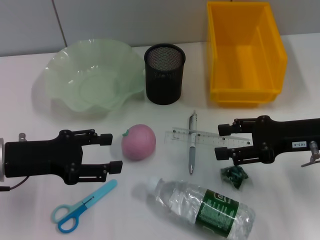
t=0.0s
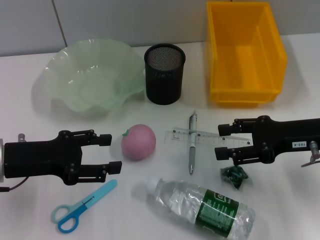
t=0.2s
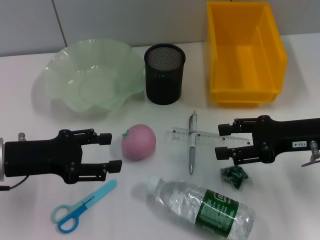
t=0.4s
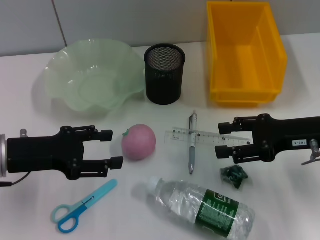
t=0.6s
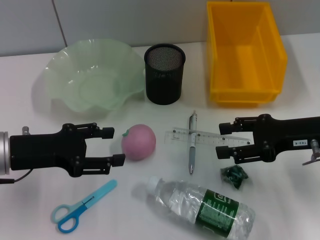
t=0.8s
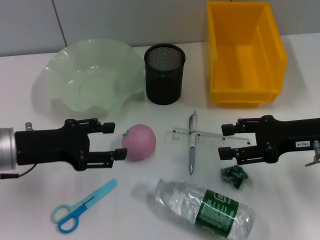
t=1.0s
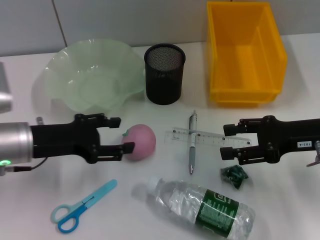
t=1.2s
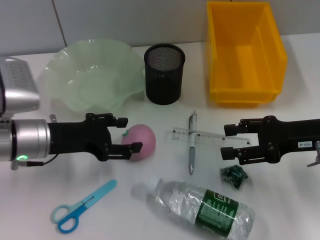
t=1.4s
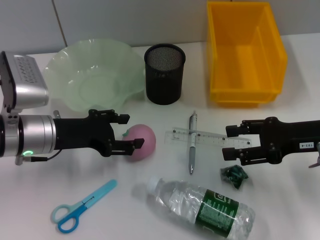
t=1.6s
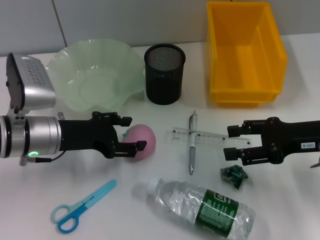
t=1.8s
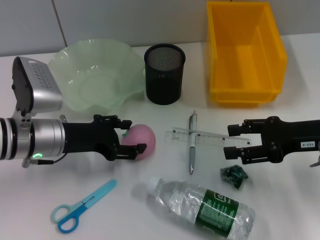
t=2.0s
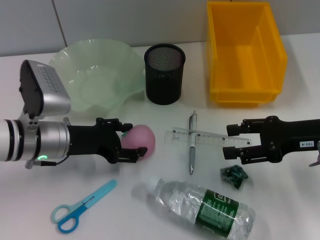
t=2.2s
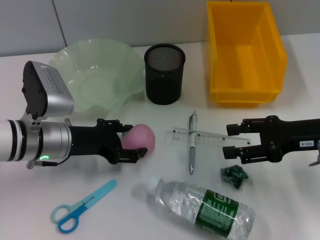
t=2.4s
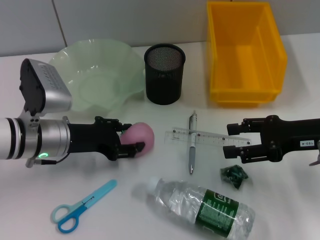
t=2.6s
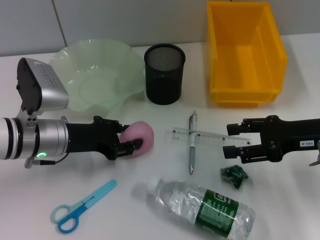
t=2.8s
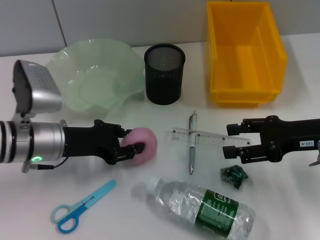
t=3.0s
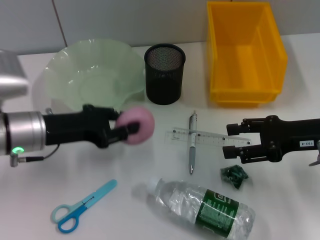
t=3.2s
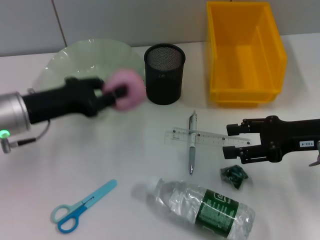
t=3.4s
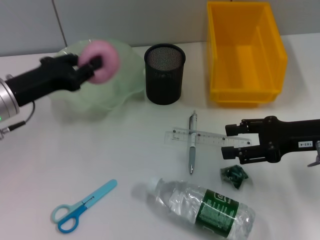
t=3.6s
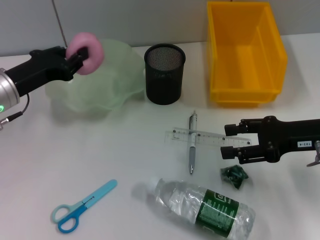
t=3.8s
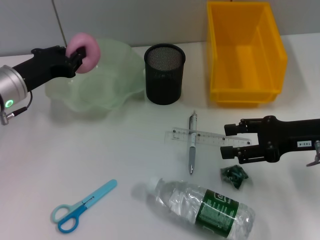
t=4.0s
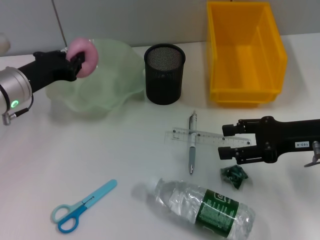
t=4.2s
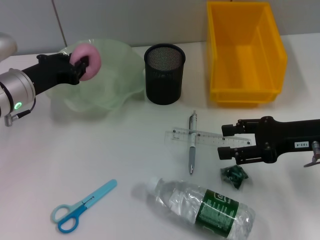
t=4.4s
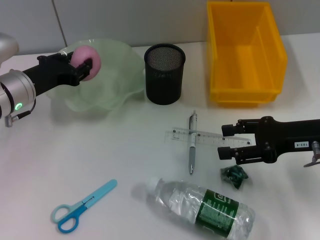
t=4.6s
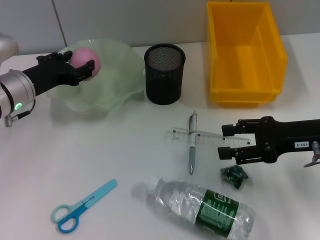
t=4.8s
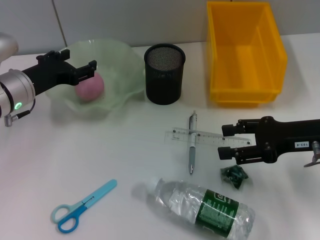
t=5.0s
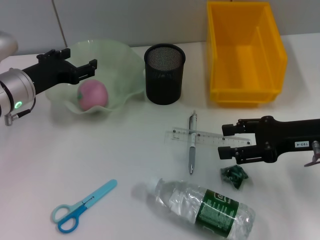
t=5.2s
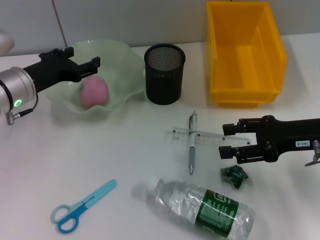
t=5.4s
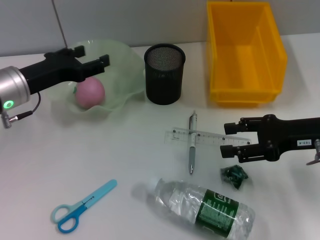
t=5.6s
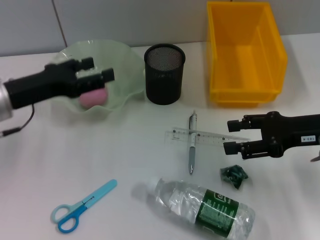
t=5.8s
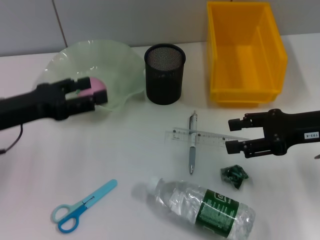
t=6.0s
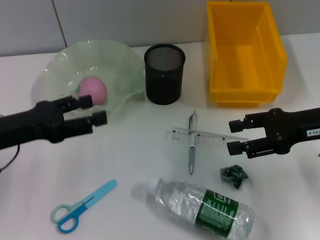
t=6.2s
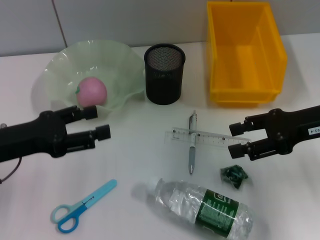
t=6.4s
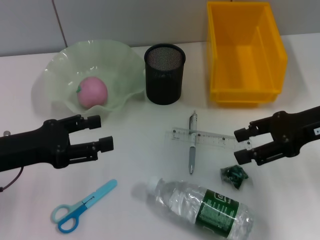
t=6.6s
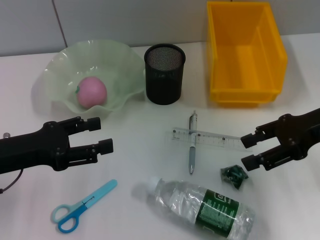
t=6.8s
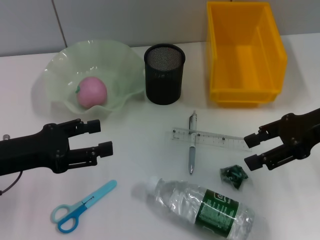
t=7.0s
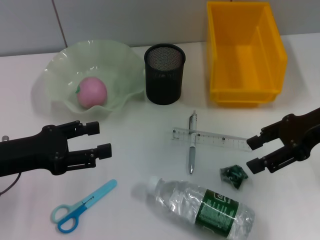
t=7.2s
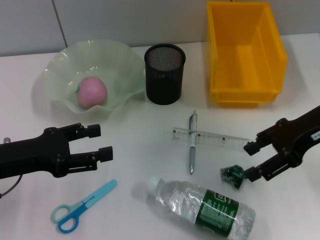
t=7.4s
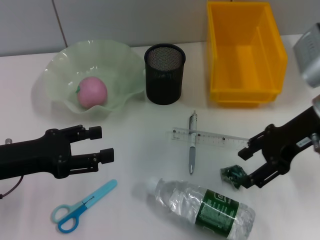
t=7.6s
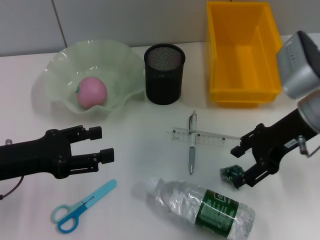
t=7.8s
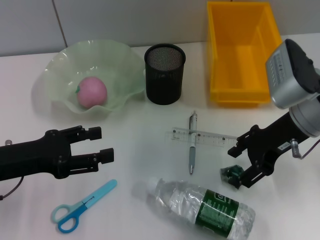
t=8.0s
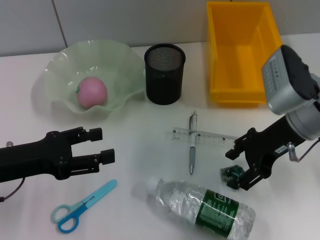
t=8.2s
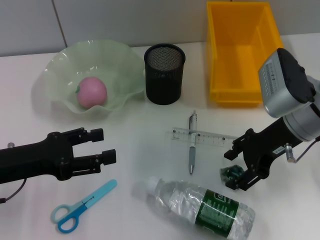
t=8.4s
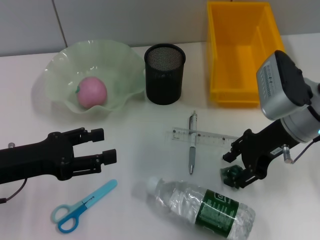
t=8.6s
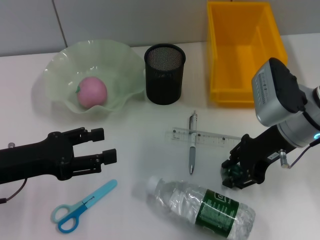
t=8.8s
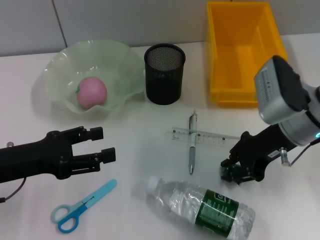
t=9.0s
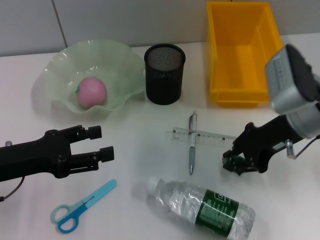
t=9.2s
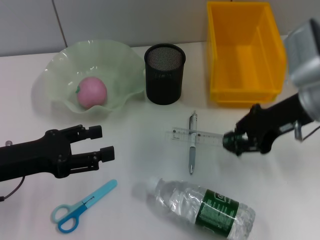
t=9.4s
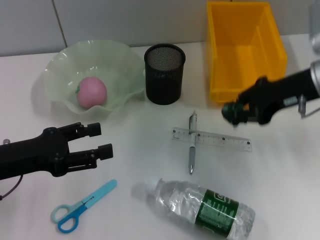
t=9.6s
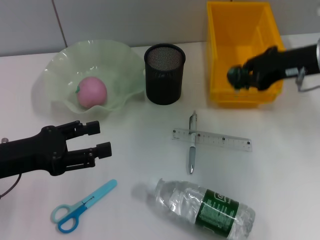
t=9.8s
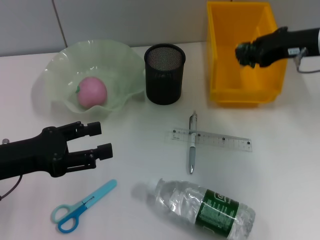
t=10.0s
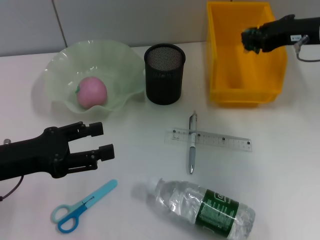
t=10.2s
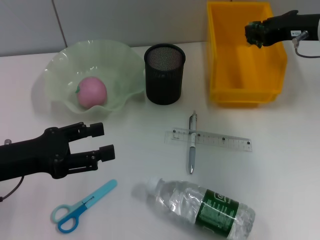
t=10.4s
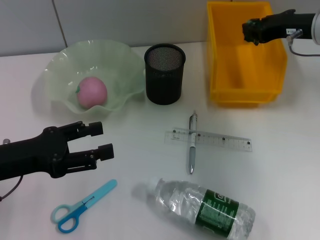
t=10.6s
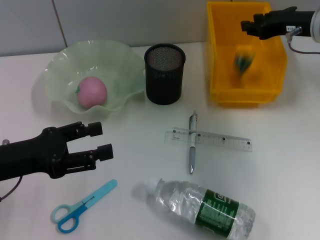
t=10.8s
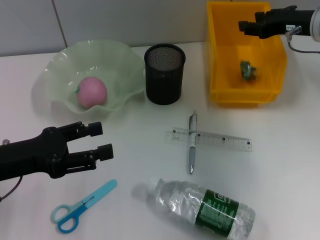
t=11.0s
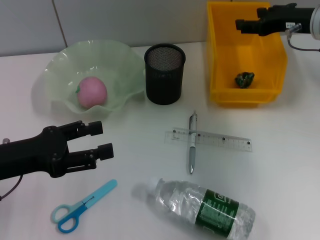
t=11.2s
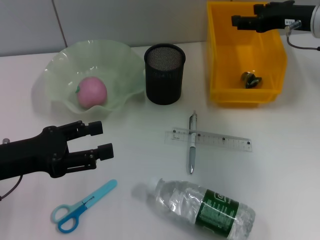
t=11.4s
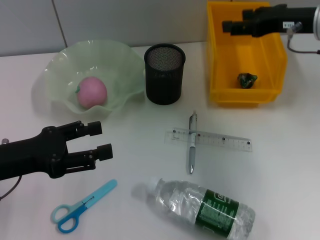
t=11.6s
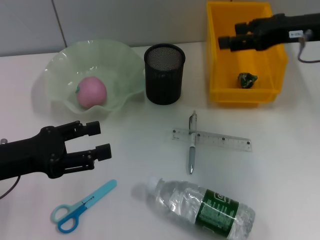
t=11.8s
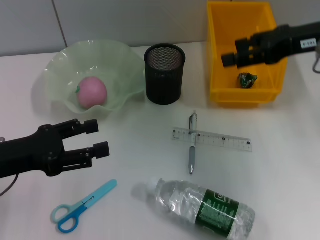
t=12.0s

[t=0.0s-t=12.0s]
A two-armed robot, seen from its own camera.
Step, t=0.0s to t=2.4s: Grab the peach with the left hand.
Step, t=2.6s to t=5.2s: Place the peach into the fruit bowl with the left hand.
Step, t=5.4s to t=8.6s: Grab the plastic with the right hand.
Step, t=8.8s to t=11.2s: Place the plastic into the trash can with the right hand.
t=0.0s to t=1.6s: The left gripper heads to the right, covering approximately 5 cm.
t=1.6s to t=3.0s: The left gripper closes up.
t=3.0s to t=4.4s: The left gripper travels forward by about 5 cm, and closes its fingers.
t=4.4s to t=6.0s: The left gripper shifts some 10 cm backward, and opens.
t=6.0s to t=7.6s: The right gripper ends up some 5 cm from where it was.
t=7.6s to t=9.0s: The right gripper ends up roughly 5 cm from where it was.
t=9.0s to t=10.4s: The right gripper goes about 10 cm forward, upward and to the right, and closes up.
t=10.4s to t=12.0s: The right gripper shifts some 5 cm backward, and opens.

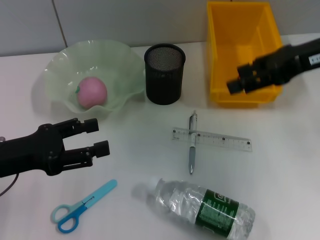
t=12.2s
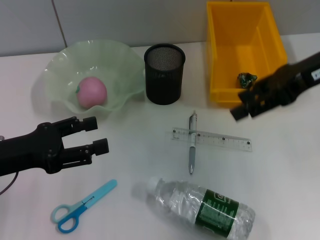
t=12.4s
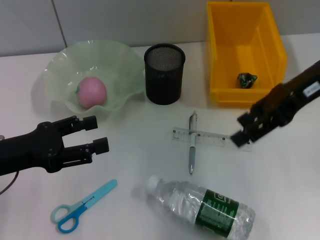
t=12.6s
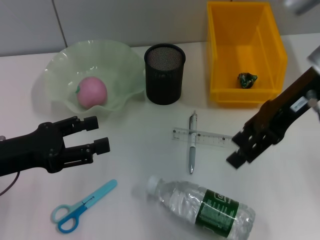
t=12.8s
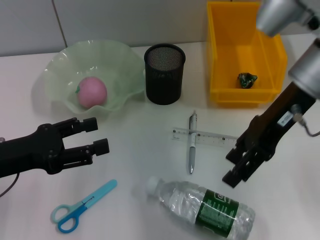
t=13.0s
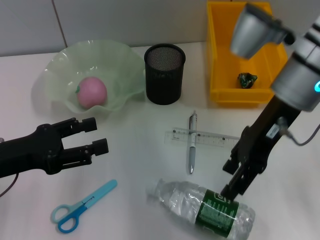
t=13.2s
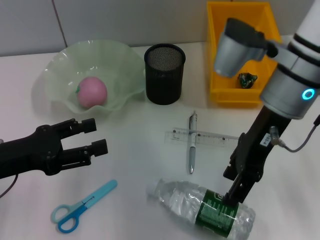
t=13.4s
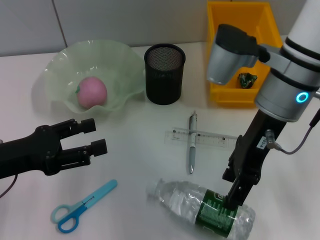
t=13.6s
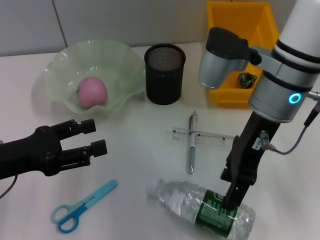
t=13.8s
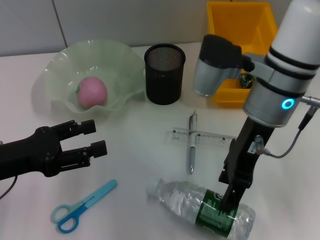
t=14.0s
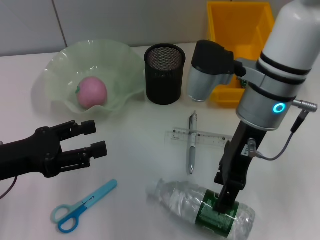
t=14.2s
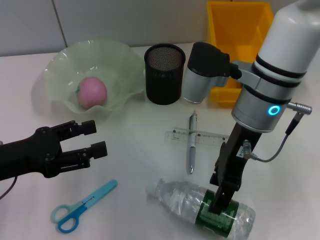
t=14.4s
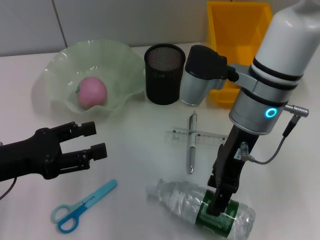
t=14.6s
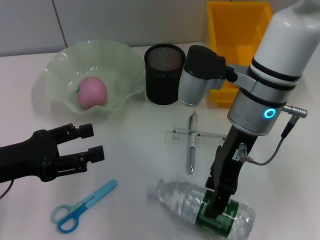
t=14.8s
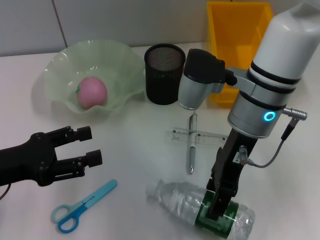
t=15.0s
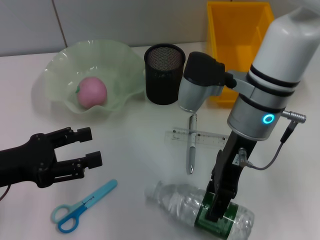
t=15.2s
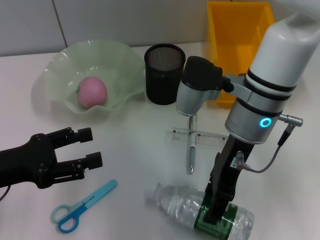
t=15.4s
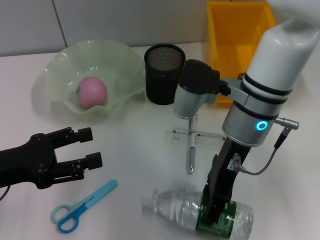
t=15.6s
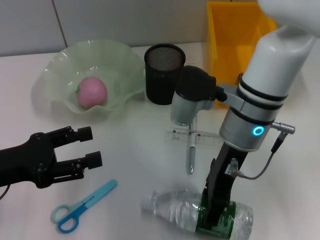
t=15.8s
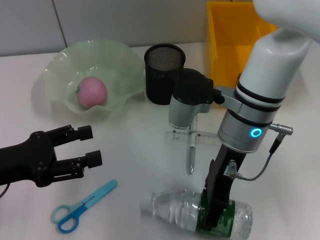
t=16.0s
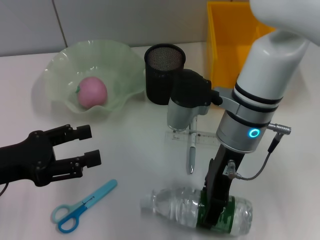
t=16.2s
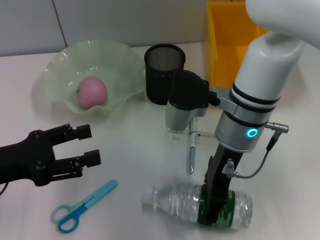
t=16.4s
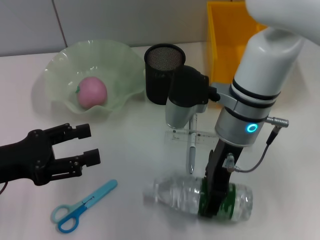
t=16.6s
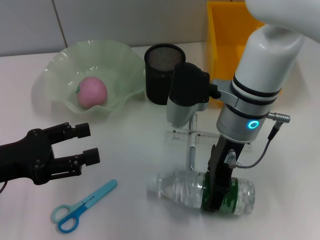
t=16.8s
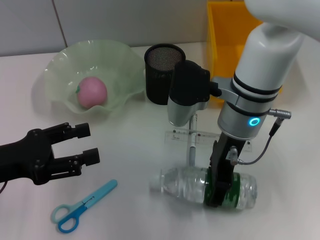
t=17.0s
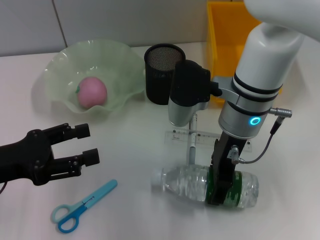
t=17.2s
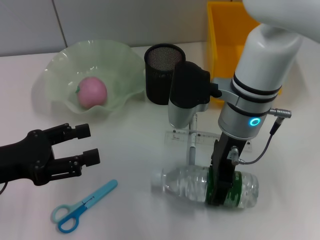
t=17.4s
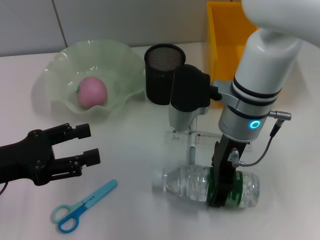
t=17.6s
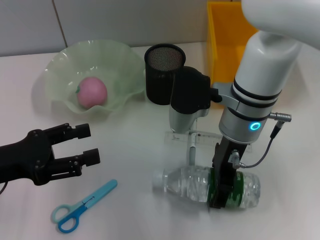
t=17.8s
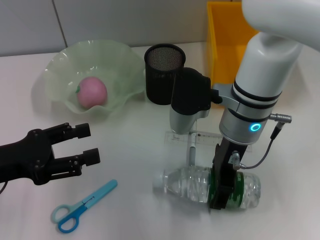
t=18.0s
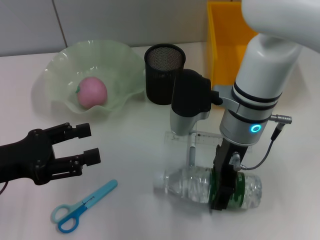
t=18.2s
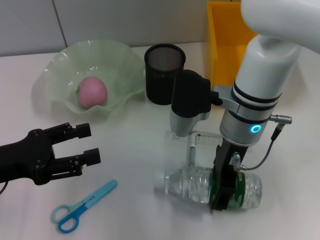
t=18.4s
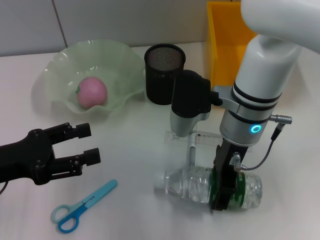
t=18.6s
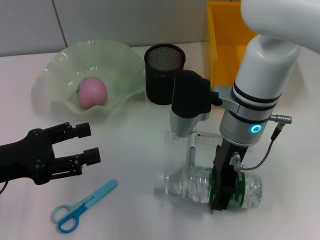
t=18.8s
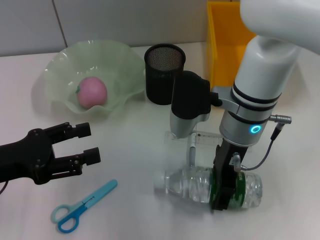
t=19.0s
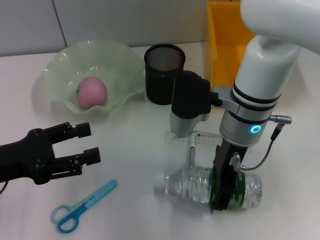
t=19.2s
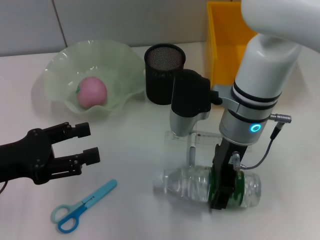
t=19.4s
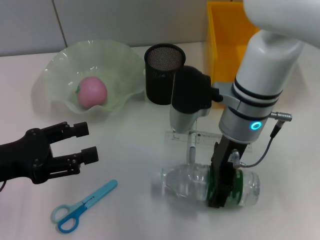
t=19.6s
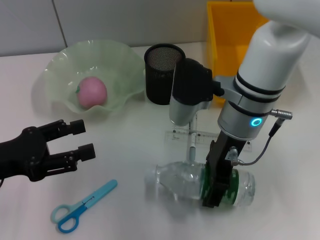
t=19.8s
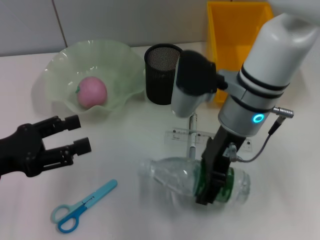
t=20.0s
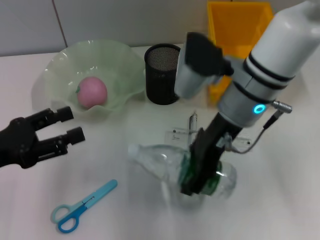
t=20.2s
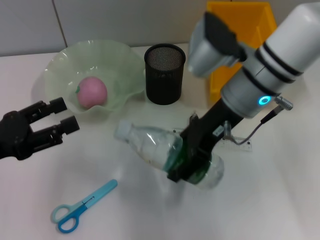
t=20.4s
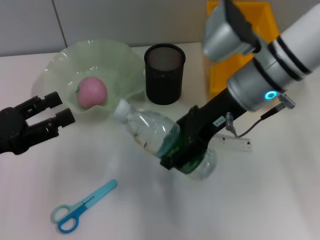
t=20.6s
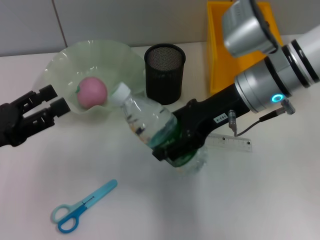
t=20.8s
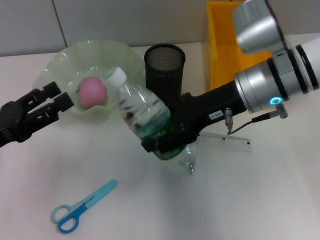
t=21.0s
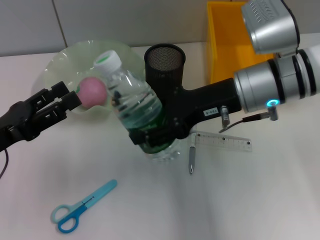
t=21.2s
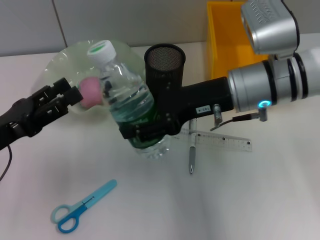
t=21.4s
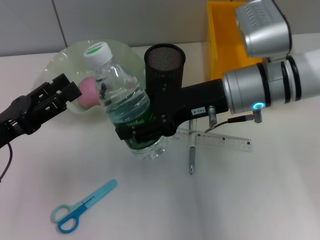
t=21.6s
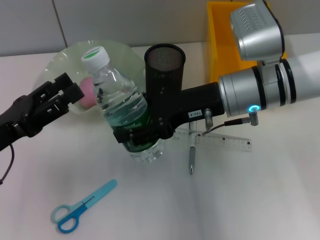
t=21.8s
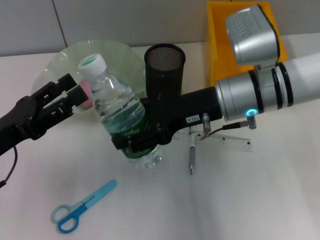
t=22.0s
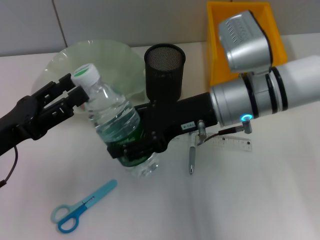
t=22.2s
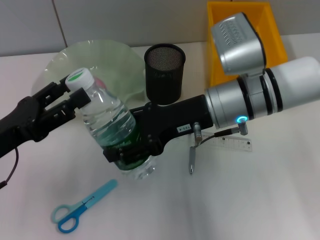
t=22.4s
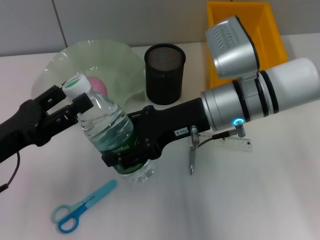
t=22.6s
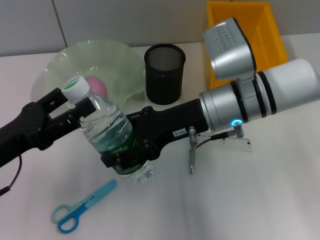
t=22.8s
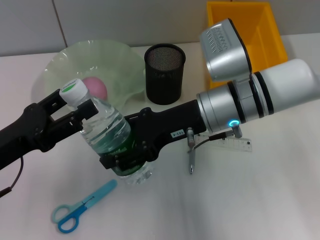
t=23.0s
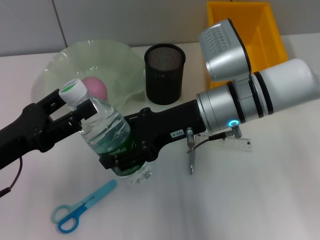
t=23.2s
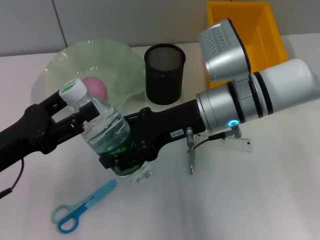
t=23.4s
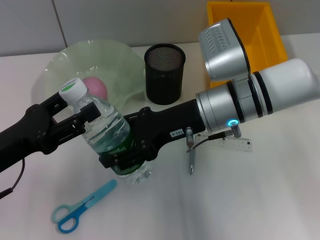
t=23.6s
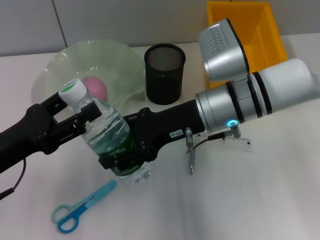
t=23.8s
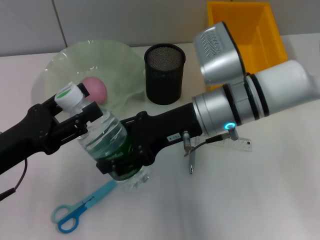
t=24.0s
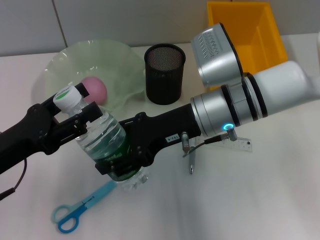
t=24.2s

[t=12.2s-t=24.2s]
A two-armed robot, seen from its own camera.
Step, t=12.2s to t=19.0s: Grab the water bottle with the right hand.
t=12.2s to t=13.8s: The right gripper travels to the left by approximately 15 cm.
t=16.6s to t=18.2s: The grippers make only small movements.
t=18.2s to t=19.8s: Neither gripper changes place.
t=19.8s to t=21.2s: The right gripper moves roughly 5 cm.
t=22.6s to t=24.2s: Neither gripper changes place.
